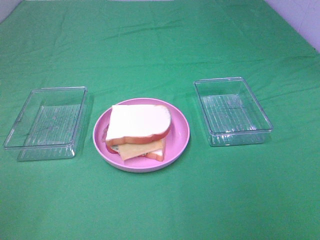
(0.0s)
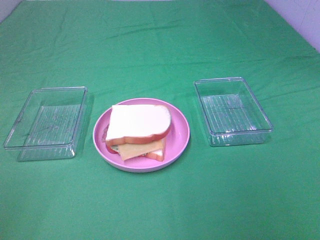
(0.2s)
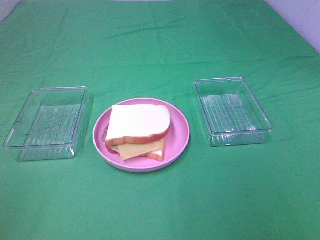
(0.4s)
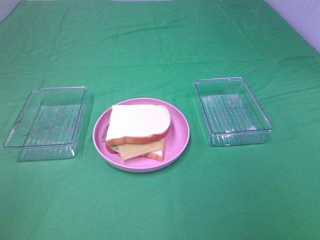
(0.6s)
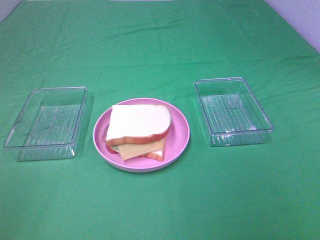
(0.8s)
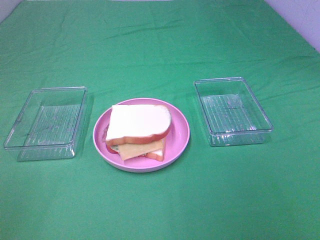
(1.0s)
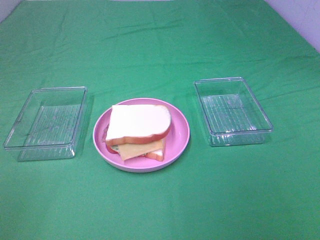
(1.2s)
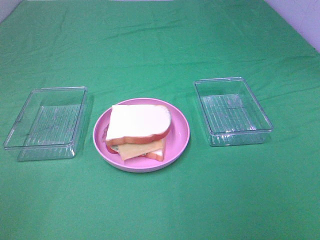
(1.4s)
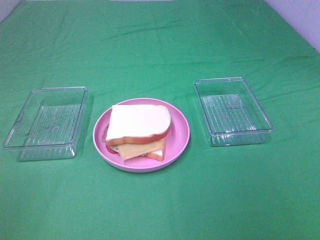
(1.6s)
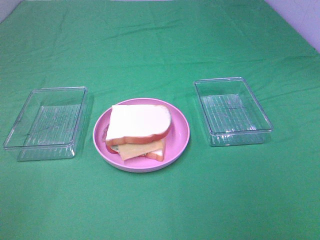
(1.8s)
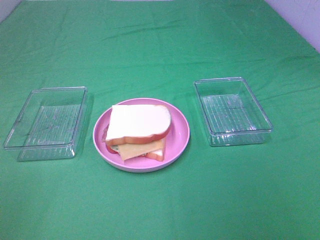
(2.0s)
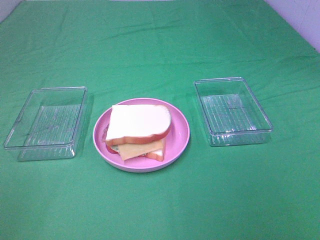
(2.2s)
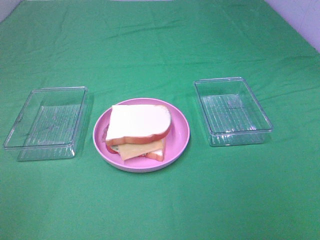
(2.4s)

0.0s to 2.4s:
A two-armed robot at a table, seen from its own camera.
Task of the whole recording: Make sandwiches.
0.0s to 2.4s: Neither gripper changes place.
